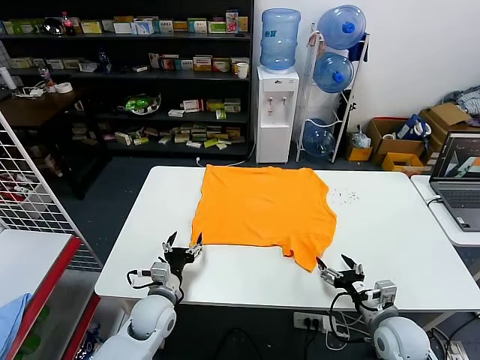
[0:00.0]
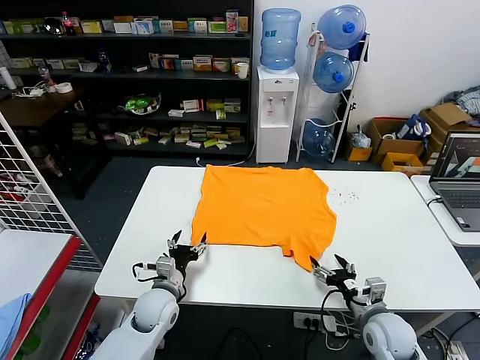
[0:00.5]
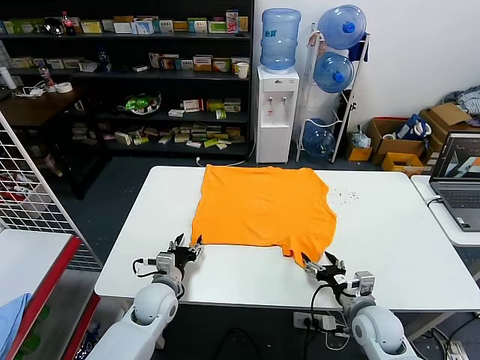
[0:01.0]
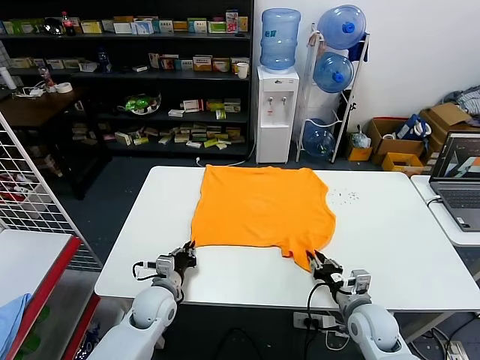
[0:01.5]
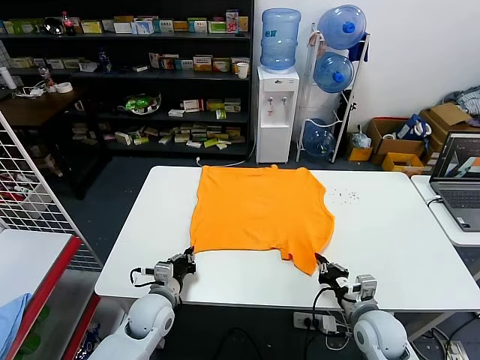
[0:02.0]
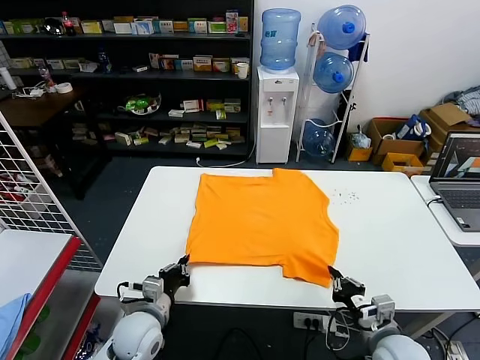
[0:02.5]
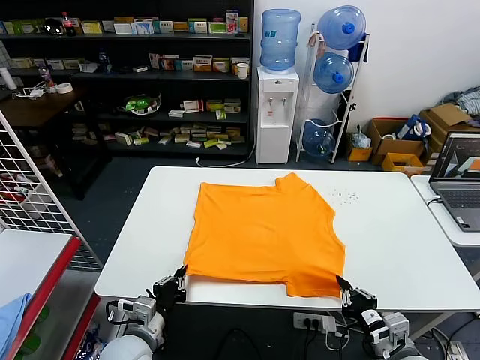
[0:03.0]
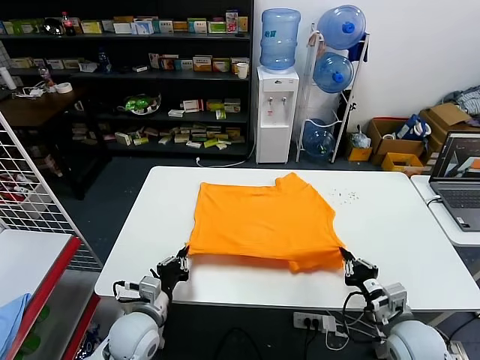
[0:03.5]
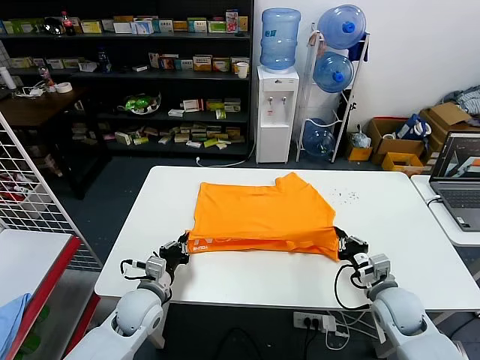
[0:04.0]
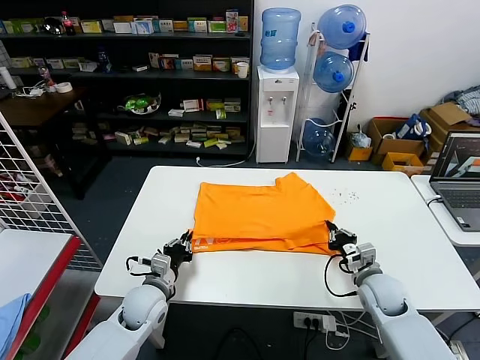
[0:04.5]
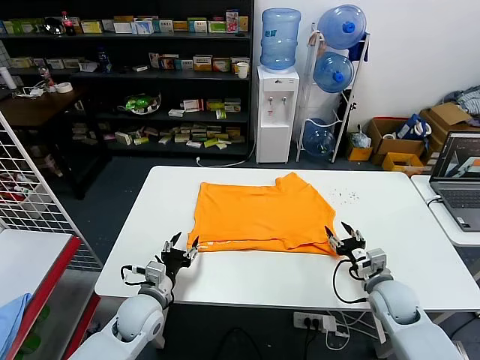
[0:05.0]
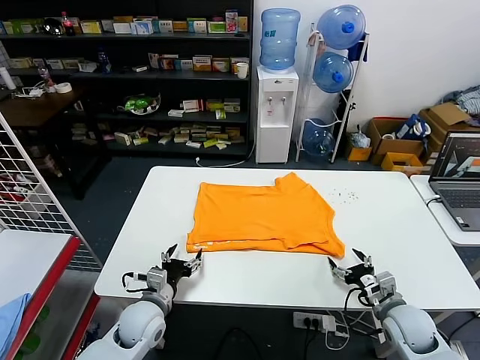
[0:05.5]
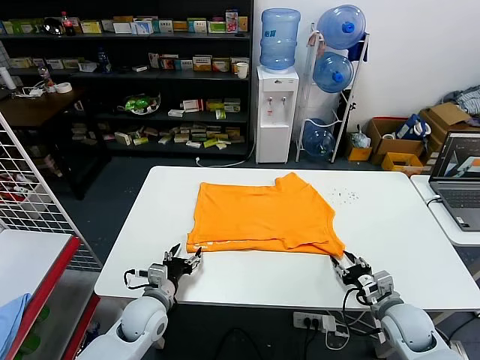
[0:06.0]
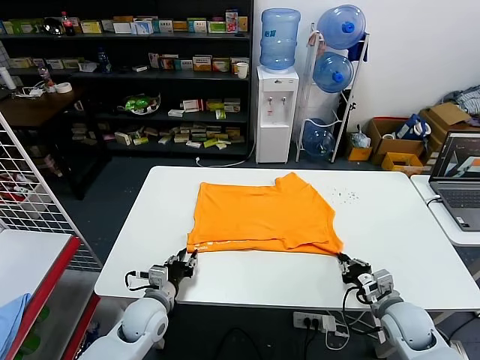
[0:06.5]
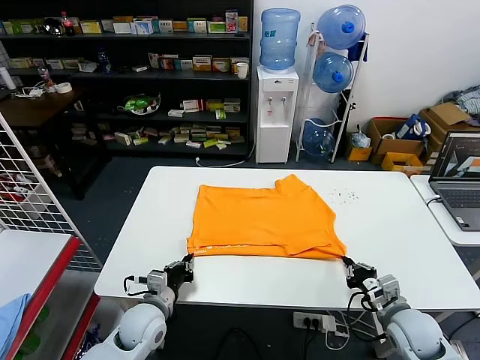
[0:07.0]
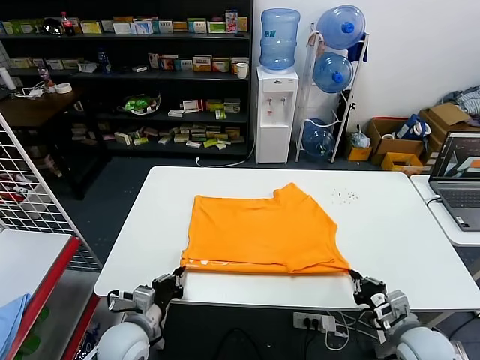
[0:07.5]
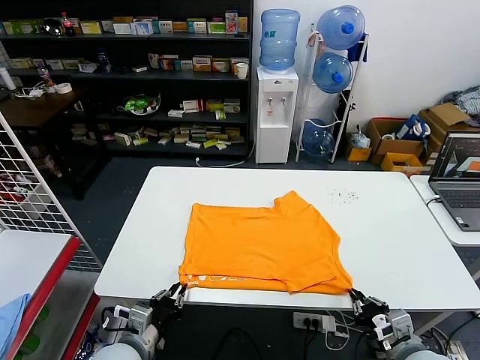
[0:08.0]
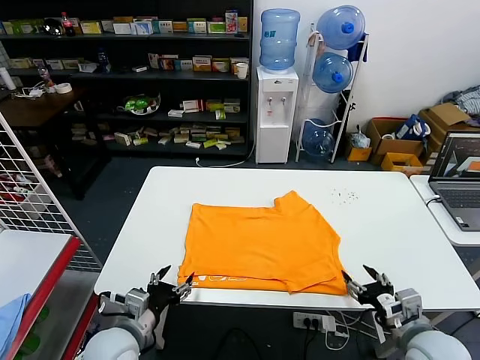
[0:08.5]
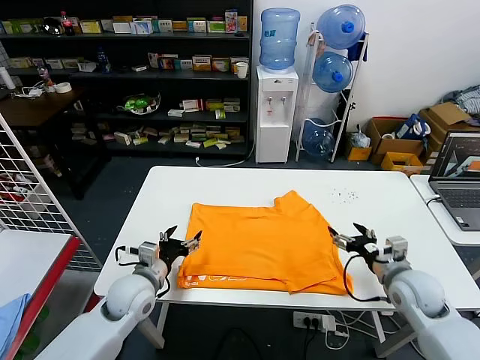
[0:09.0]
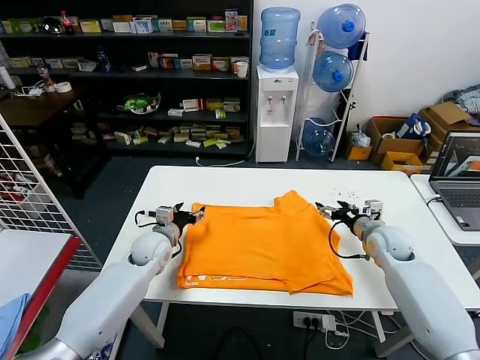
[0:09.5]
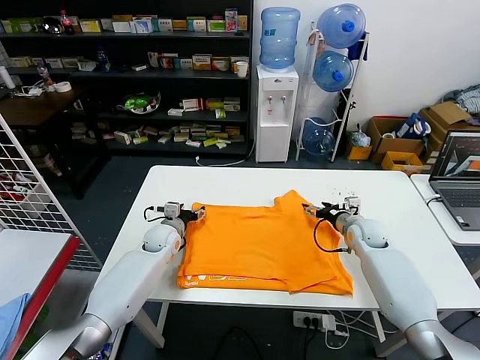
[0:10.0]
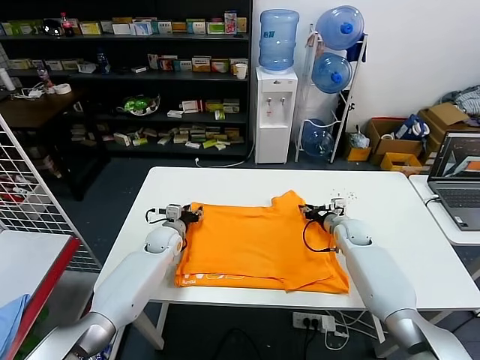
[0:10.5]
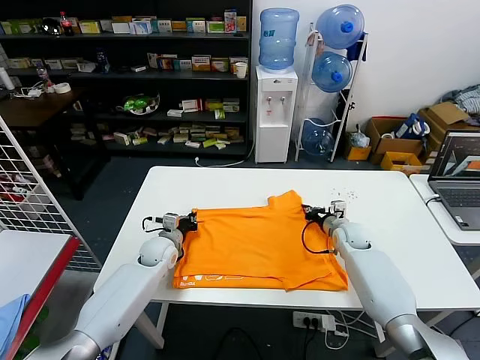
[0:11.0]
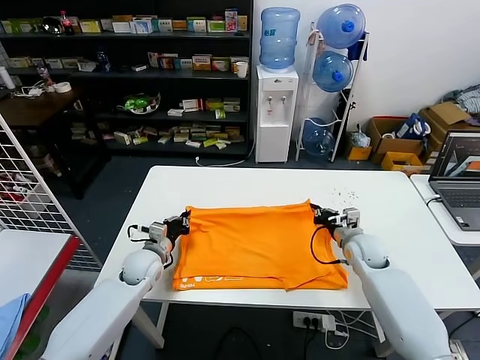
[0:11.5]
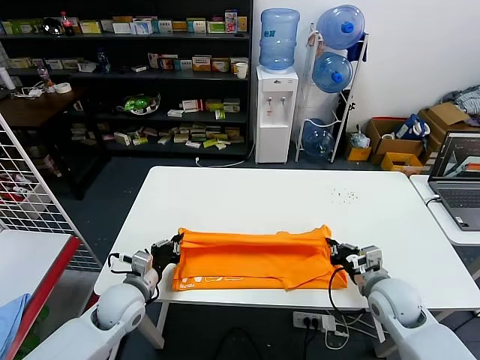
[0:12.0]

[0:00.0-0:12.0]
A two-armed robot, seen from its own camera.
Task of the whole recording: fold and organize the clothes.
Step, 0:00.0 to 0:01.5: use both grippers simultaneously to clamp the lower edge of the clothing fabric.
Step, 0:02.0 to 0:04.5: use both grippers to drag the lower edge of the fabric forward and fold it over the upper edge.
Step, 0:05.0 to 0:08.0: Drag the clothes downward with both gripper.
Step, 0:08.5 to 0:11.0: use both grippers simultaneously to clamp the upper edge of the clothing fabric.
0:02.0 to 0:04.0: The right gripper goes roughly 5 cm forward. Meanwhile the left gripper moves about 10 cm backward and comes back.
0:04.0 to 0:06.0: The right gripper opens up. The left gripper opens its fingers.
0:06.0 to 0:08.0: The left gripper heads backward, covering some 10 cm, and closes up, while the right gripper goes about 10 cm backward and upward, and closes its fingers.
0:08.0 to 0:10.0: The two grippers go some 30 cm forward. The right gripper opens. Meanwhile the left gripper opens.
0:10.0 to 0:12.0: The grippers both shift backward by some 20 cm. The left gripper closes, while the right gripper closes.

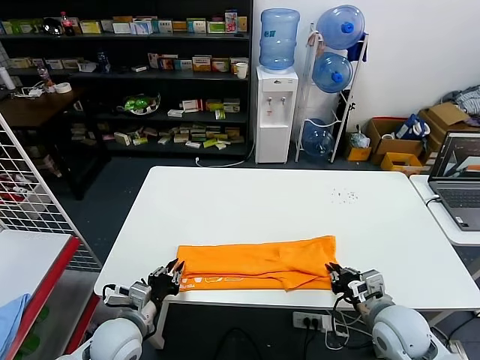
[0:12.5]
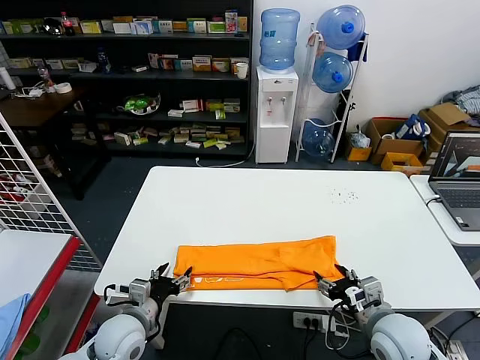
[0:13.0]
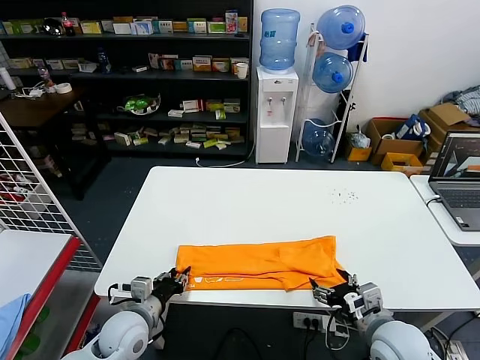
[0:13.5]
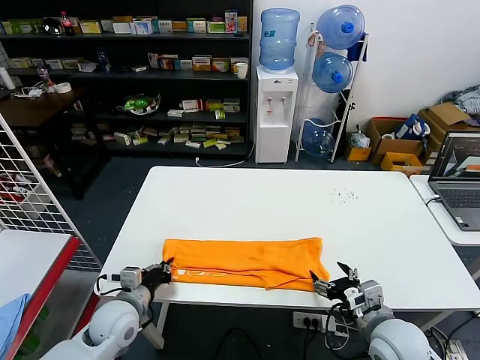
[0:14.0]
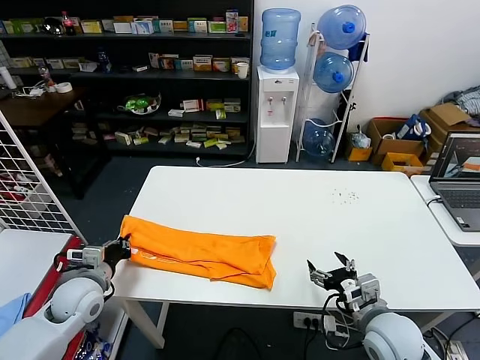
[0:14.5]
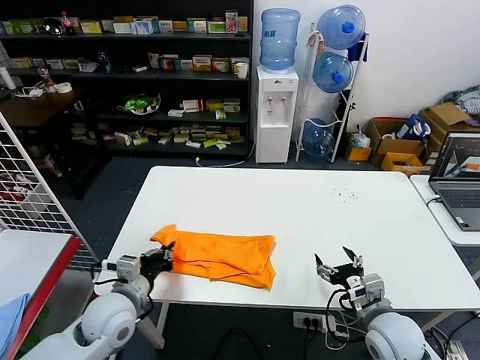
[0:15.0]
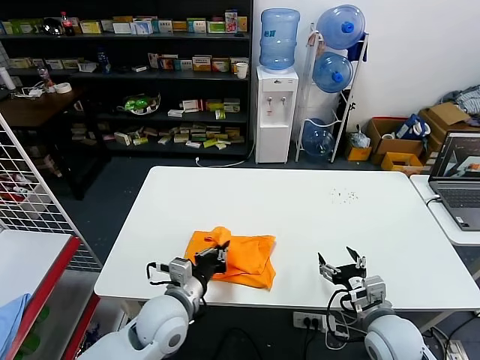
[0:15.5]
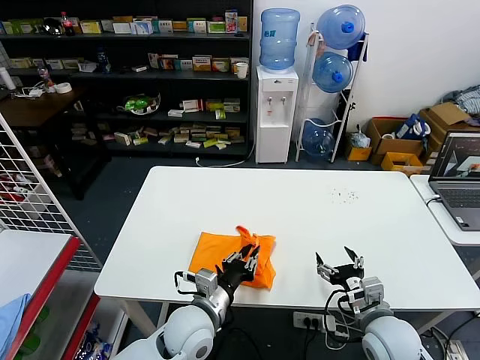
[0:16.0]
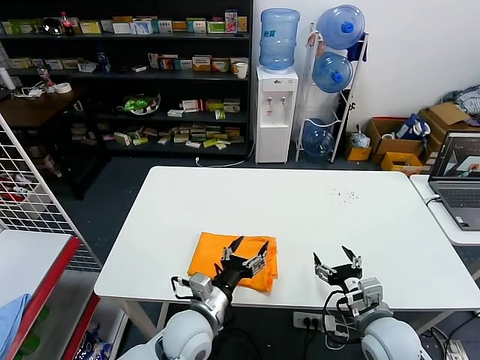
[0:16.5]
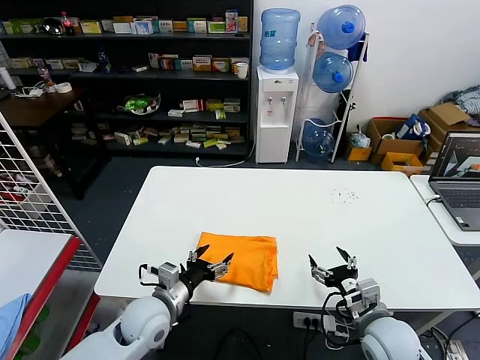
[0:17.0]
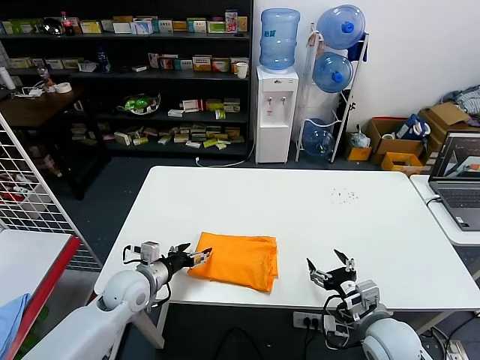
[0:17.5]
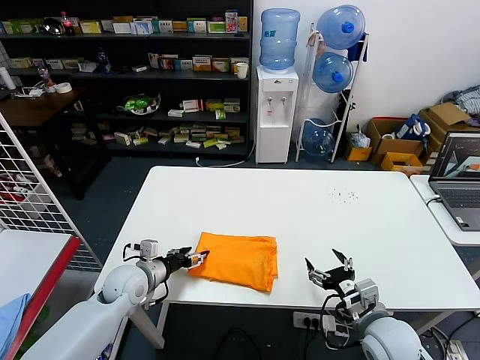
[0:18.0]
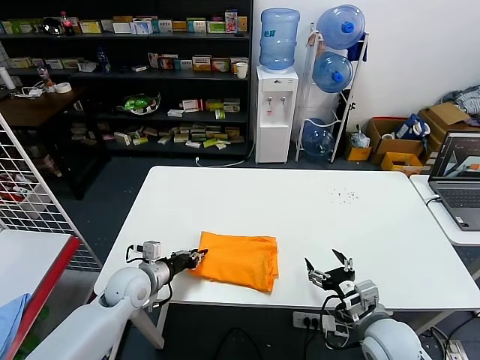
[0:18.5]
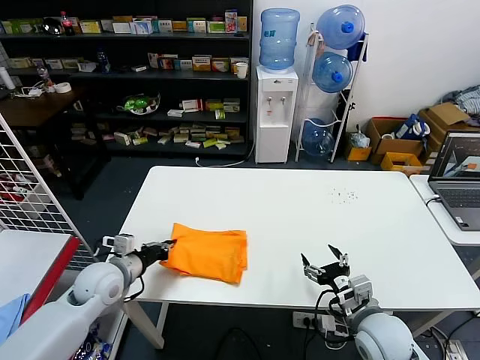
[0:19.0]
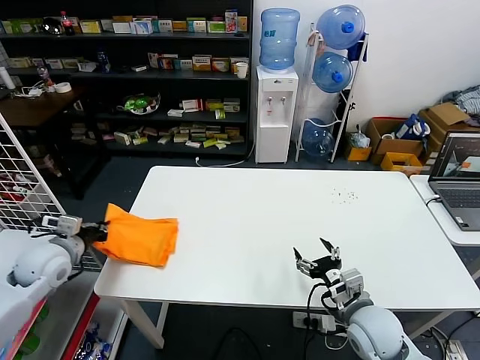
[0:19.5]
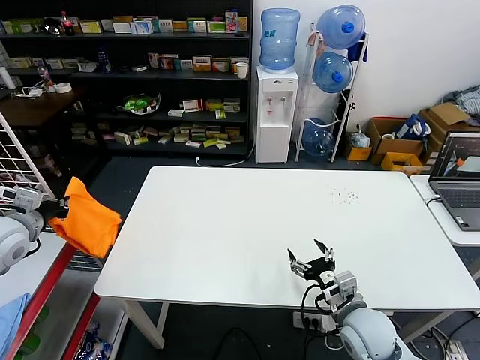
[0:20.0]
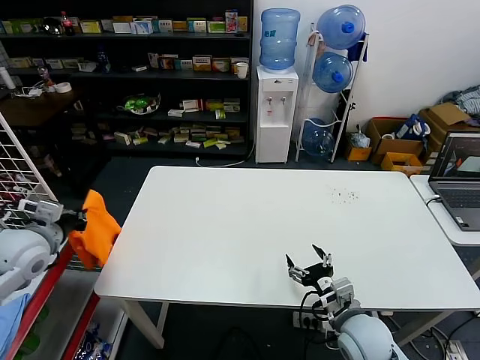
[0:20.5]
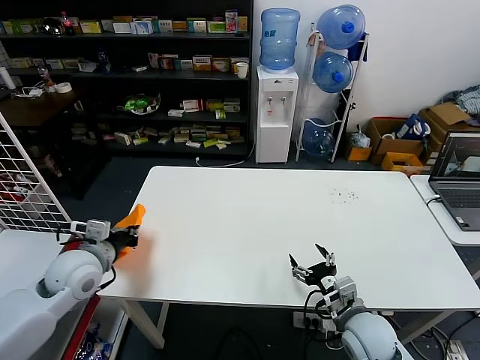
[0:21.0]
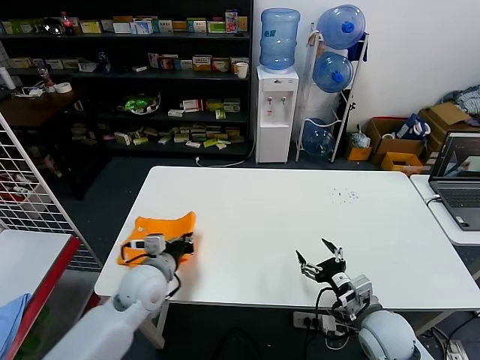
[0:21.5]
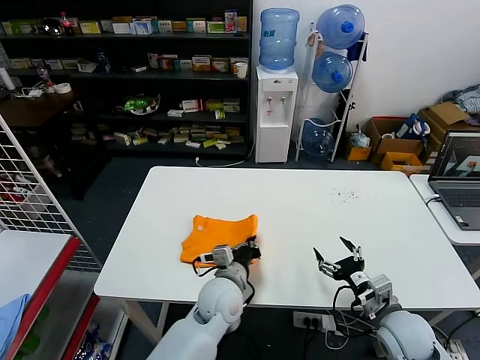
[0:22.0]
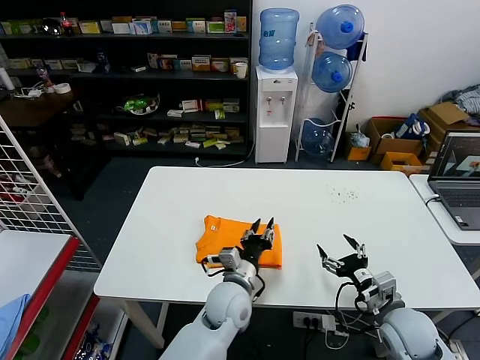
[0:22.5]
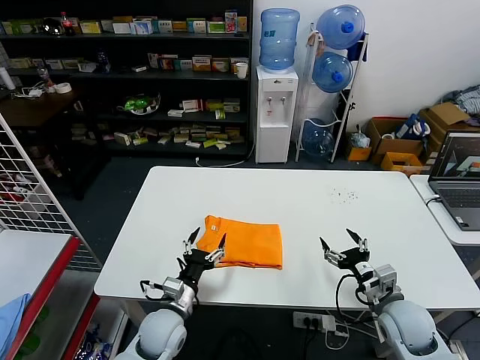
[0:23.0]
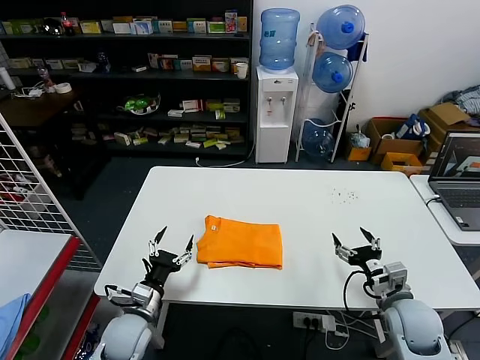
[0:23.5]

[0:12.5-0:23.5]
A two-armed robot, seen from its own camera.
Task of the whole recording: fold and organize the clothes.
Step, 0:13.0 to 0:13.5: use the left gripper to clamp the left edge of the fabric.
Step, 0:14.0 to 0:16.0: use the left gripper to drag the left edge of the fabric to the left and folds it over the right edge.
Step, 0:16.5 to 0:22.0: Flip the folded clothes over with left gripper.
0:12.5 to 0:14.5: The right gripper opens. Meanwhile the left gripper is displaced to the left and forward by about 10 cm, and opens and closes again.
0:14.5 to 0:16.0: The left gripper moves to the right, approximately 25 cm.
0:16.0 to 0:18.0: The left gripper goes about 20 cm to the left and forward, and opens.
0:18.0 to 0:20.0: The left gripper heads to the left and upward, covering roughly 25 cm, and closes.
0:20.0 to 0:21.5: The left gripper goes roughly 25 cm to the right and downward.
0:21.5 to 0:23.5: The left gripper moves downward and backward, some 15 cm, reaches some 20 cm to the right, then returns, and opens its fingers. The right gripper heads to the right, covering some 5 cm.

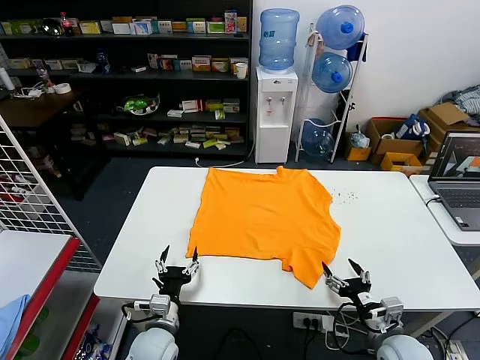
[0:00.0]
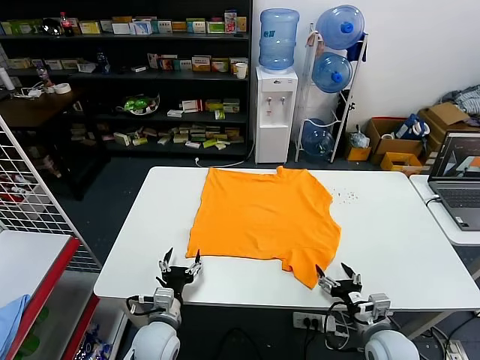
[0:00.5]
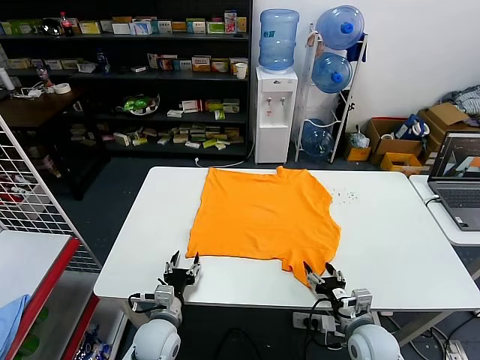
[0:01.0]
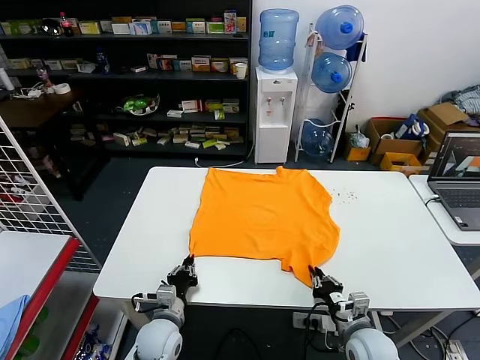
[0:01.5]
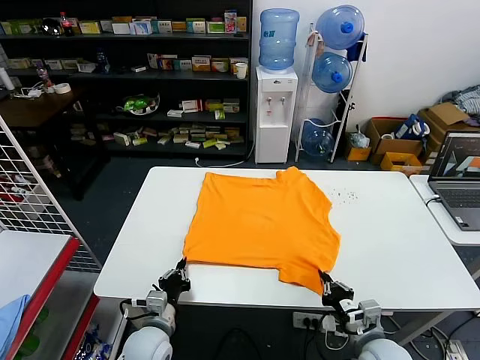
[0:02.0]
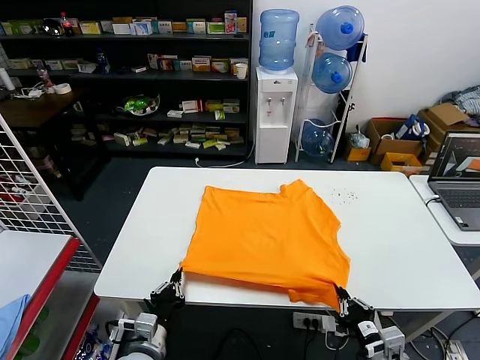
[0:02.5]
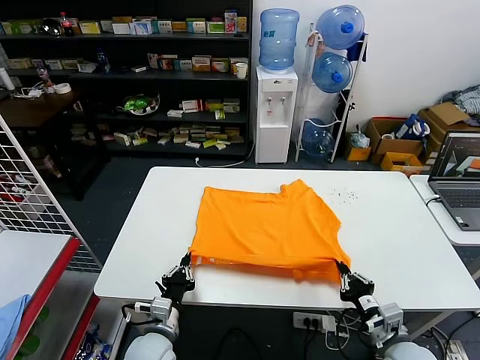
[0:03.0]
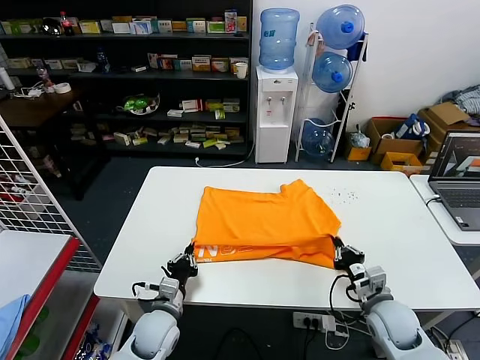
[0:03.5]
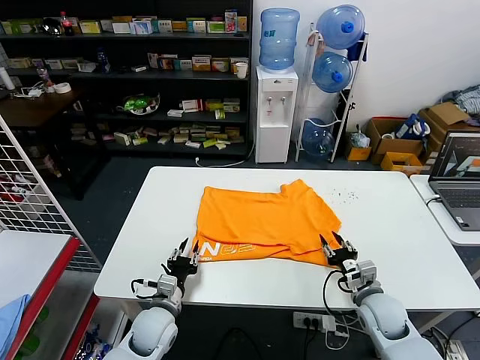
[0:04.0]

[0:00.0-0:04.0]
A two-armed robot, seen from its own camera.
Task of the whole recording: fold and organize the clothes.
Step, 0:00.0 to 0:01.5: use both grippers simultaneously to clamp the lower edge of the clothing fabric.
Step, 0:02.0 to 0:03.5: use both grippers to drag the lower edge of the fabric forward and fold it over the upper edge.
0:02.0 to 0:04.0: The right gripper is displaced forward by roughly 10 cm, and opens its fingers. The left gripper opens its fingers.
